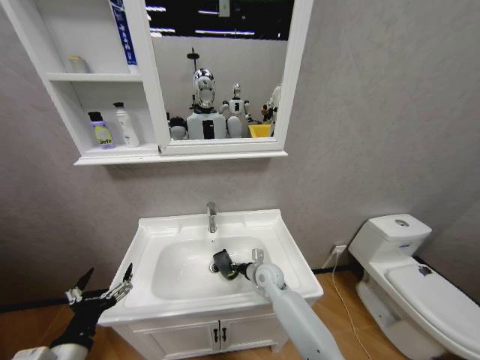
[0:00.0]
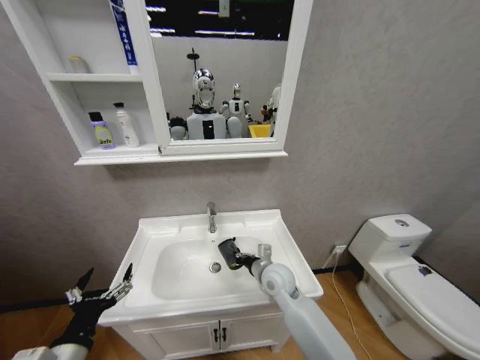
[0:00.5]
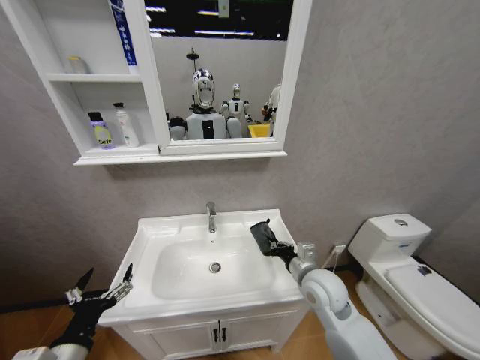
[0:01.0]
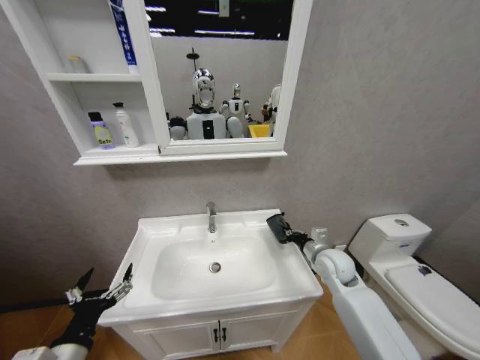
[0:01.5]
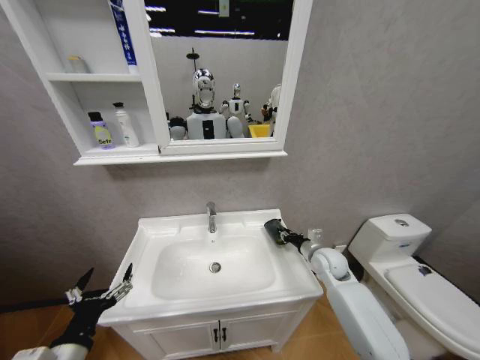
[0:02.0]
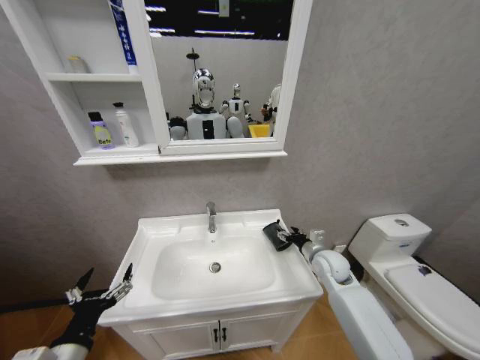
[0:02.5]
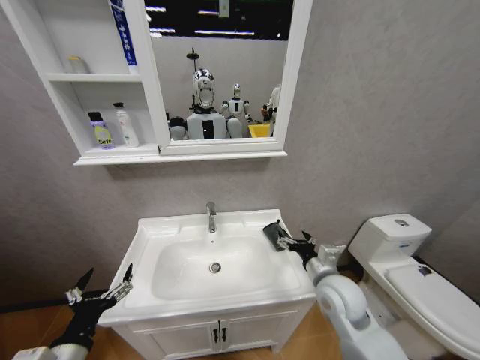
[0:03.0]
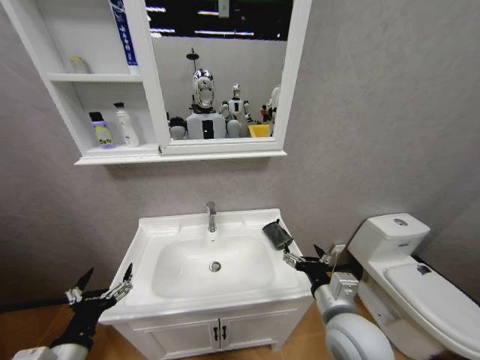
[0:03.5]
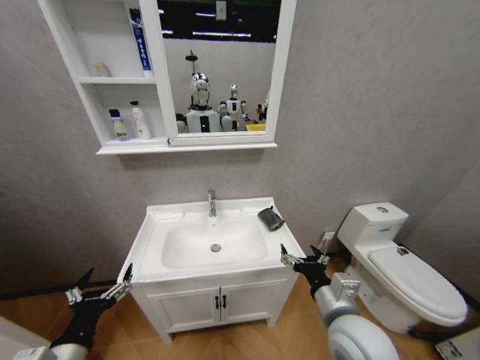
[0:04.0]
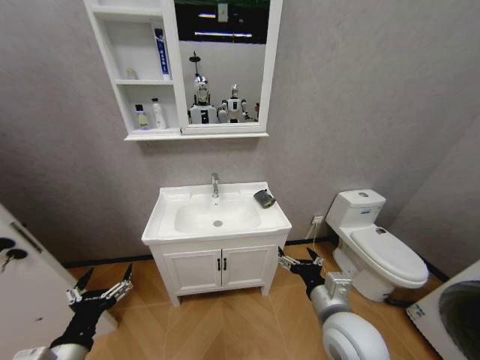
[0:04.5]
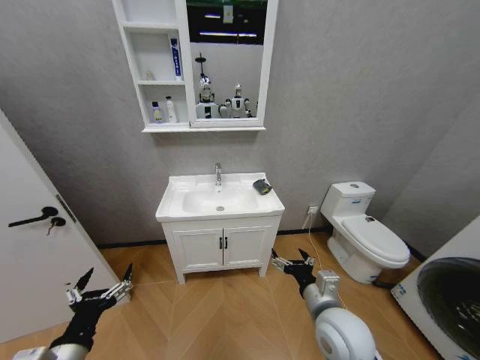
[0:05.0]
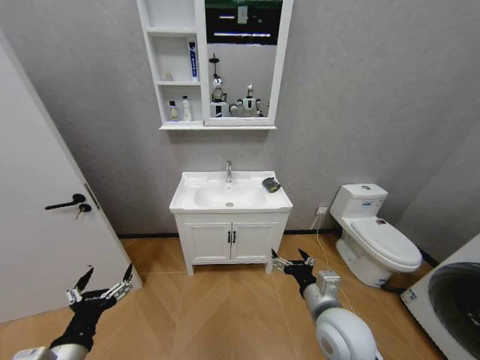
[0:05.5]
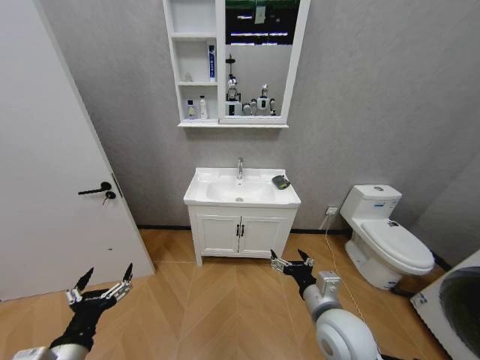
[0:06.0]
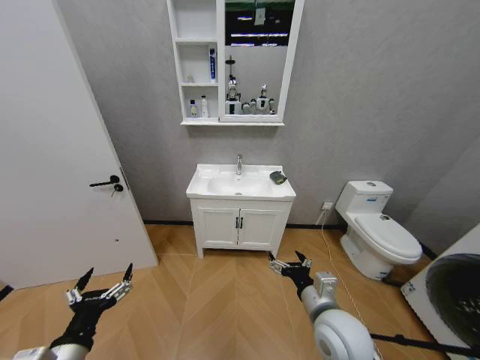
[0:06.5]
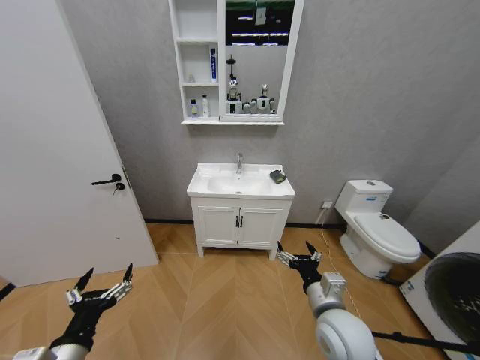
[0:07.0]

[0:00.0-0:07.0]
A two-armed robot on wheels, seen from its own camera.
Task of the whole recording: Move facial cleanser and shampoo from washbasin to cabinet, then wipe washbasin with towel.
0:00.0 to 0:02.0: The right gripper goes about 20 cm to the right and upward.
0:02.0 to 0:03.5: The right gripper heads backward, to the left and upward, covering some 25 cm, and opens.
